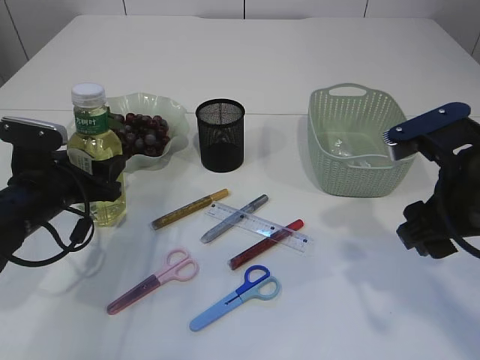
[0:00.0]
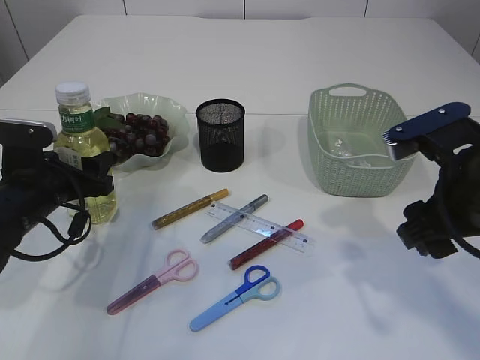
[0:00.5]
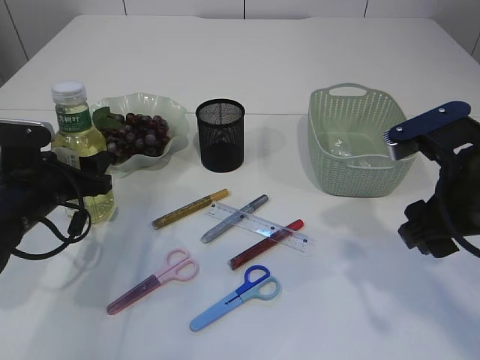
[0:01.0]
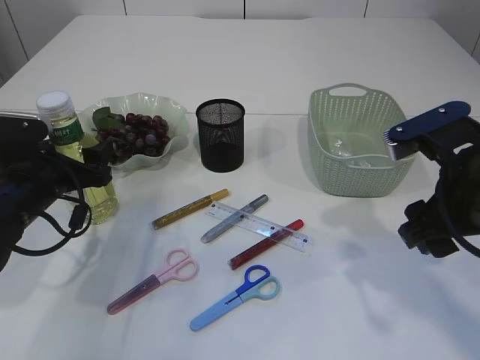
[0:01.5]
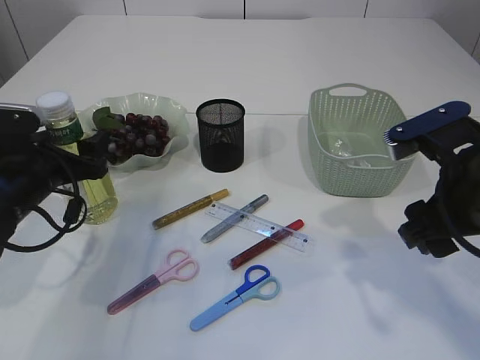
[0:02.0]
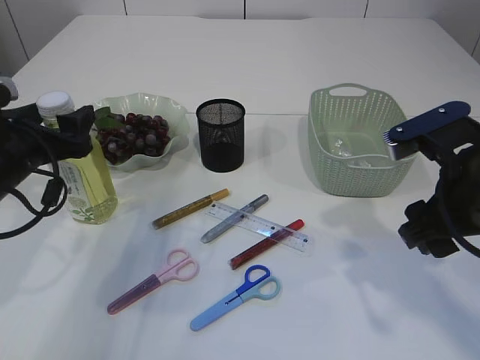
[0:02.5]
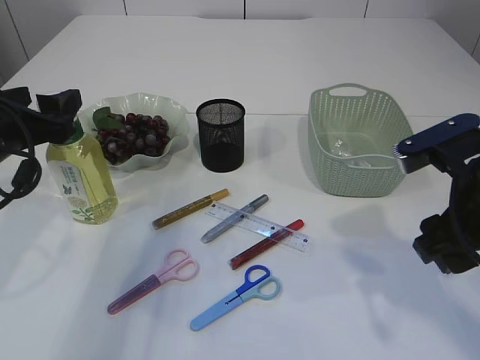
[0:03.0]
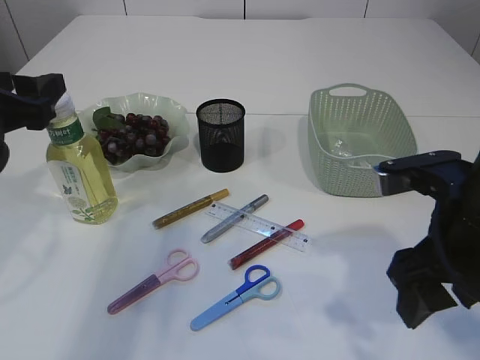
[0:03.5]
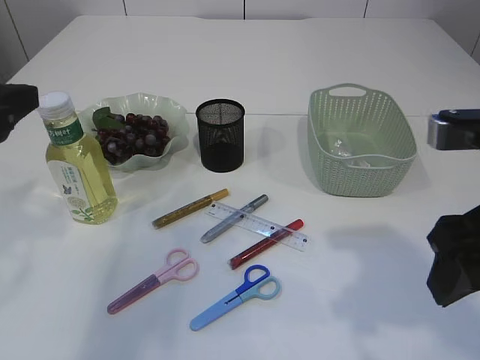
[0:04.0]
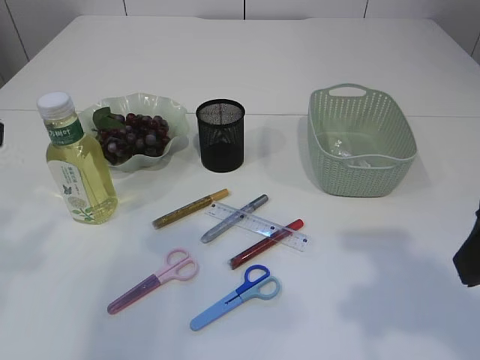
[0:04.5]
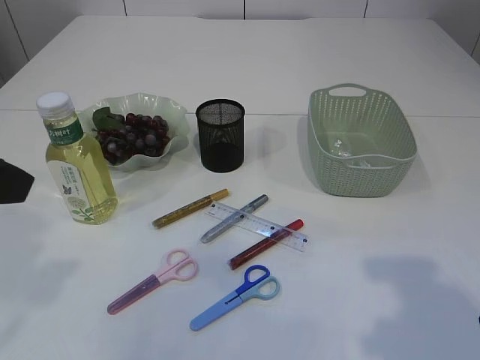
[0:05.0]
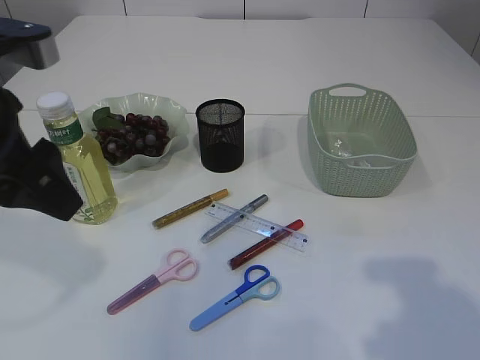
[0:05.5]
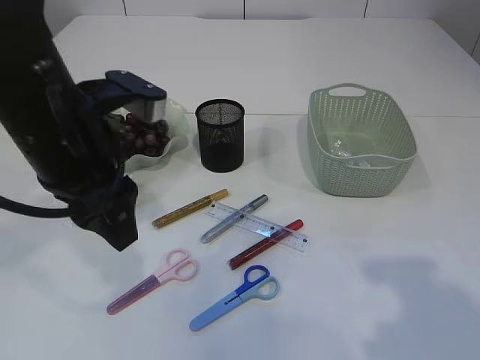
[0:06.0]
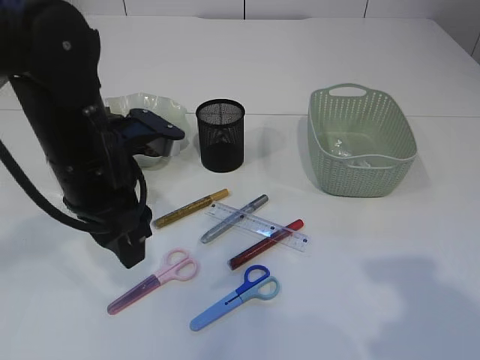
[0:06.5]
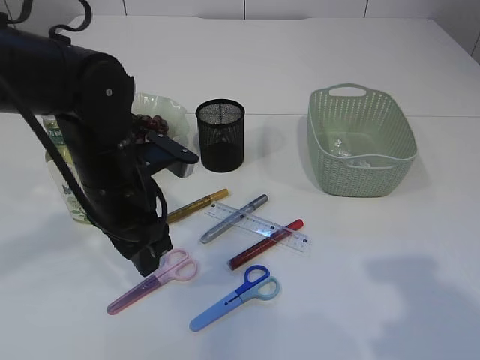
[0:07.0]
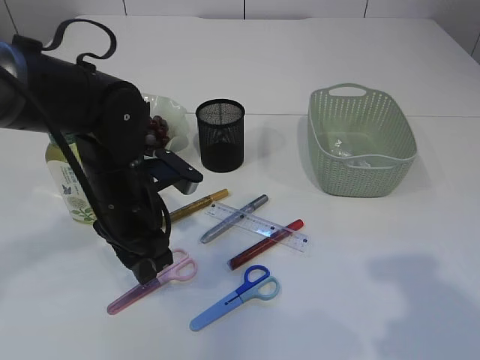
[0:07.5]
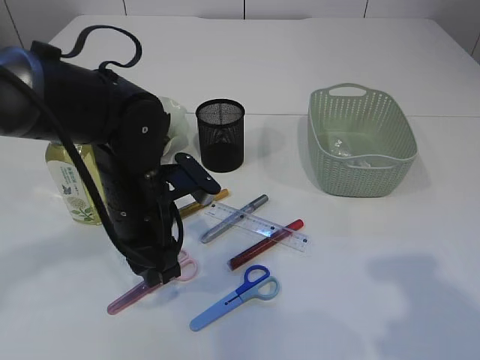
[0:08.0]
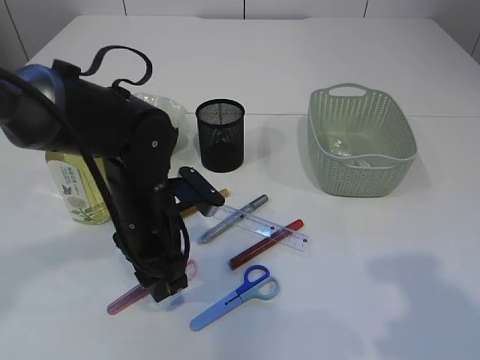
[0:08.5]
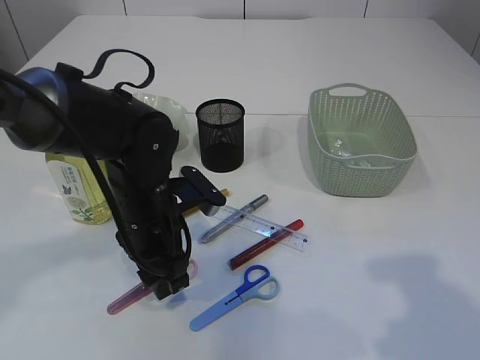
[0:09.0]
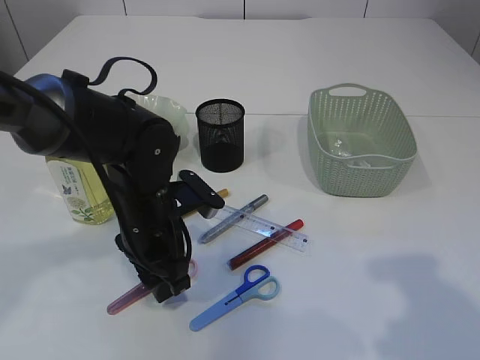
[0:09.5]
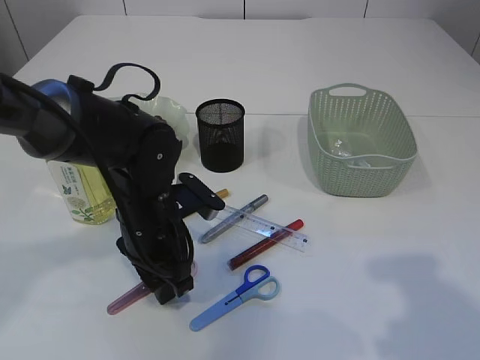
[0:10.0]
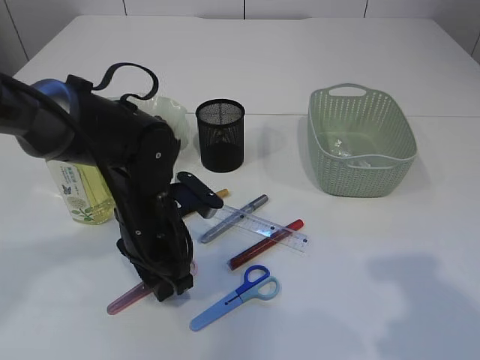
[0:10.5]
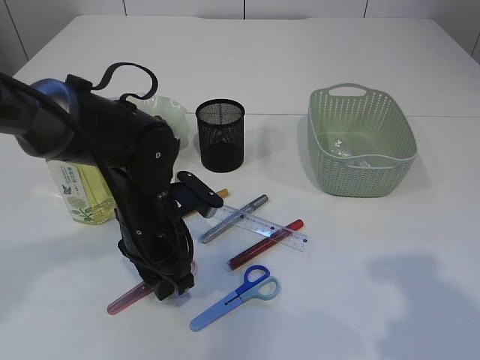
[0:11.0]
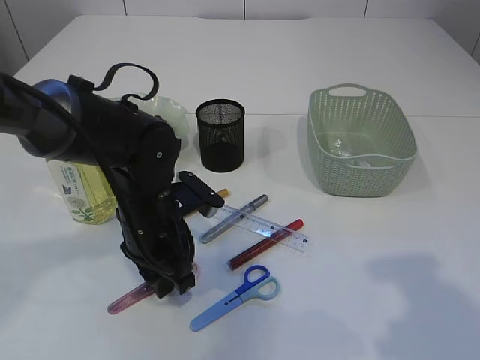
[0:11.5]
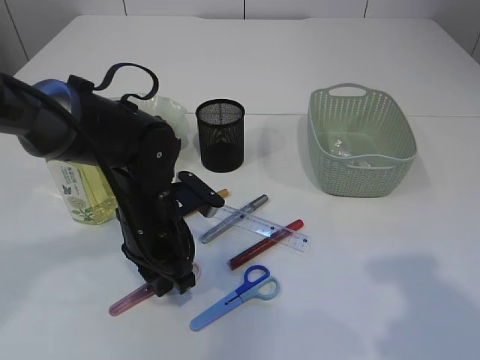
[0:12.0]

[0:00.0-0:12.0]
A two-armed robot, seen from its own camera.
Step, 0:00.0 to 0:03.0: Place the bottle.
0:00.0 to 0:02.0: The grippers make only small movements.
0:02.0 to 0:04.0: The left gripper is displaced upward and backward by approximately 20 cm; the right gripper is displaced backward and upward by some 10 cm.
0:04.0 to 0:06.0: The right gripper is displaced backward by approximately 5 cm. The left gripper goes about 10 cm to the right.
0:06.0 to 0:08.0: The left gripper shifts roughly 10 cm downward.
0:08.0 to 0:10.0: The grippers make only small movements.
0:10.0 to 0:12.0: The left gripper closes its fingers.

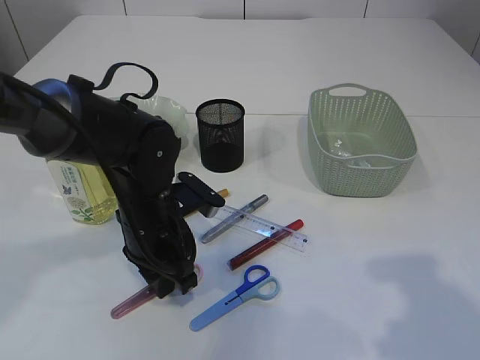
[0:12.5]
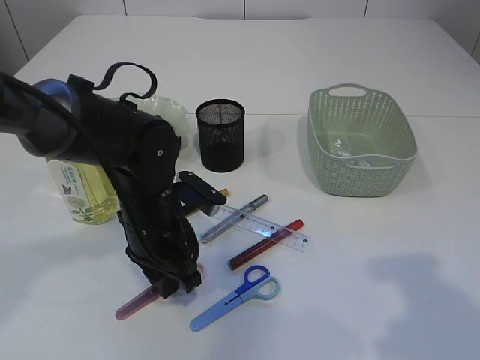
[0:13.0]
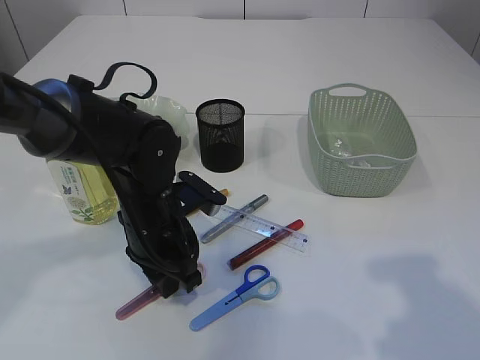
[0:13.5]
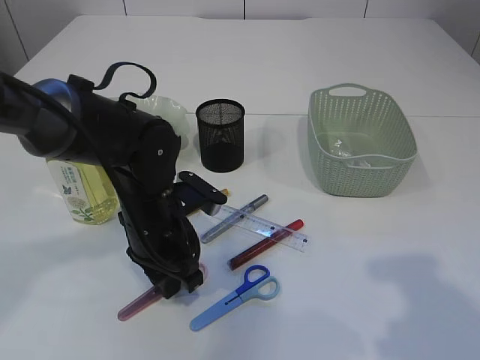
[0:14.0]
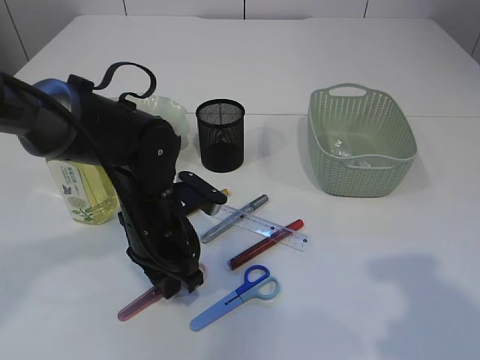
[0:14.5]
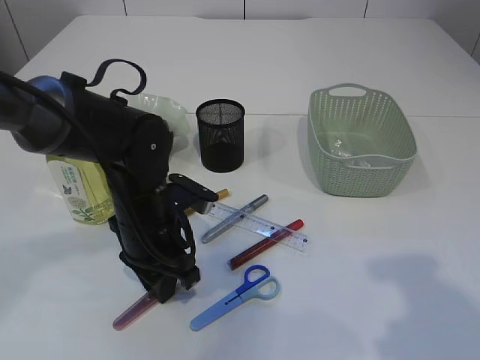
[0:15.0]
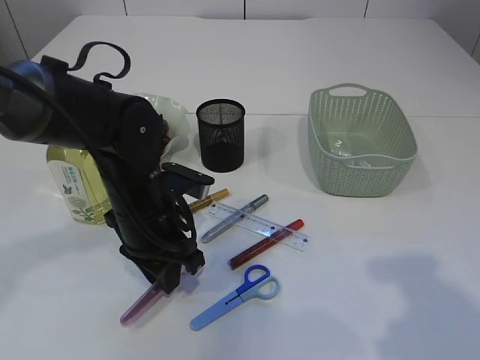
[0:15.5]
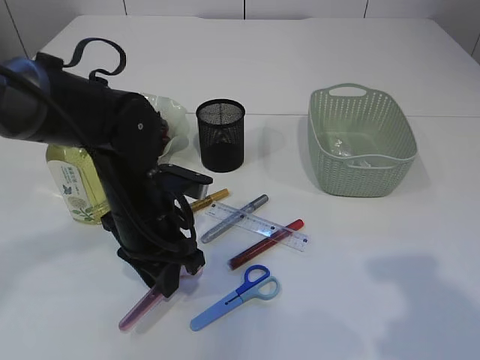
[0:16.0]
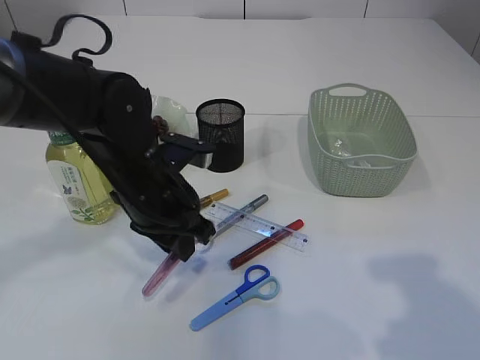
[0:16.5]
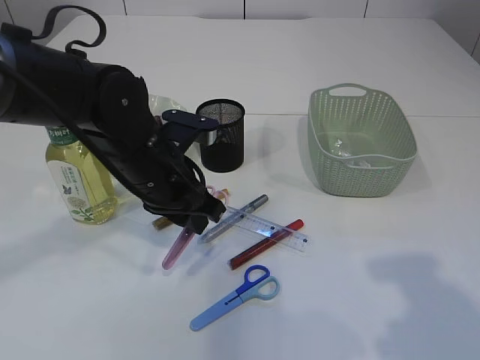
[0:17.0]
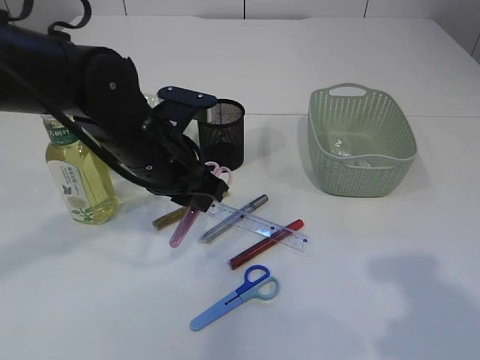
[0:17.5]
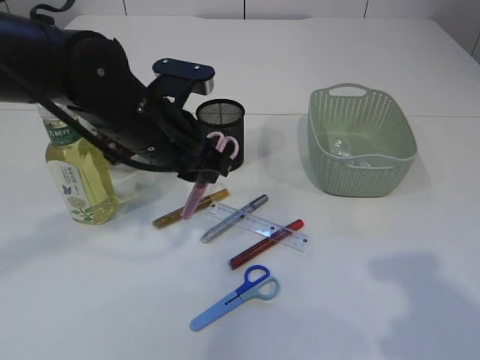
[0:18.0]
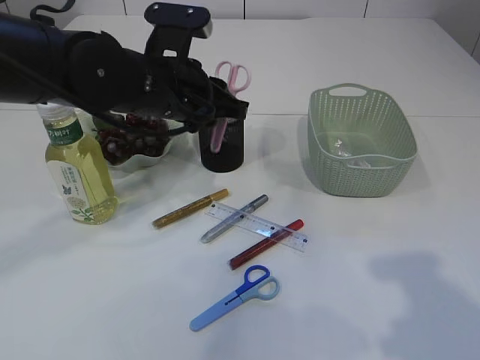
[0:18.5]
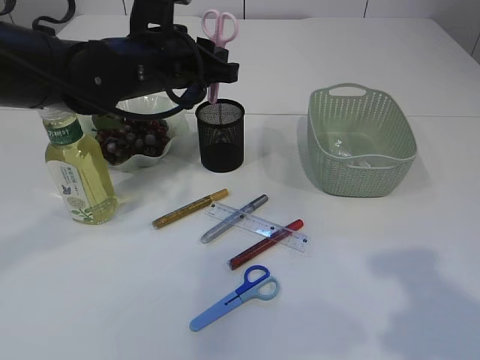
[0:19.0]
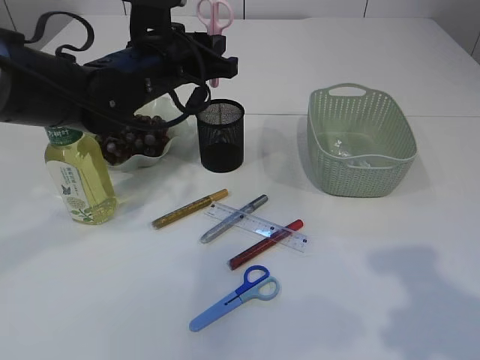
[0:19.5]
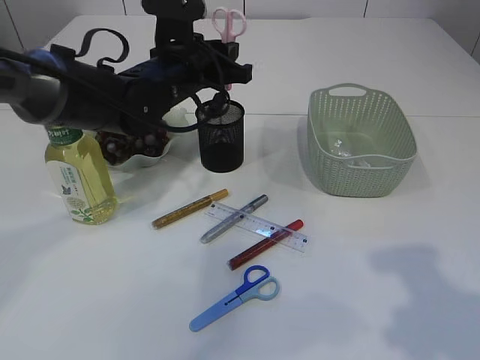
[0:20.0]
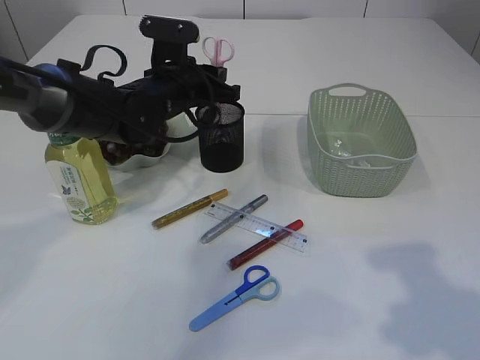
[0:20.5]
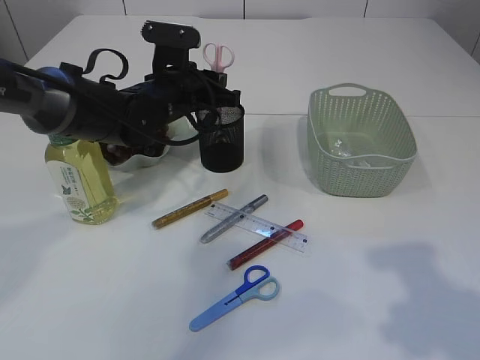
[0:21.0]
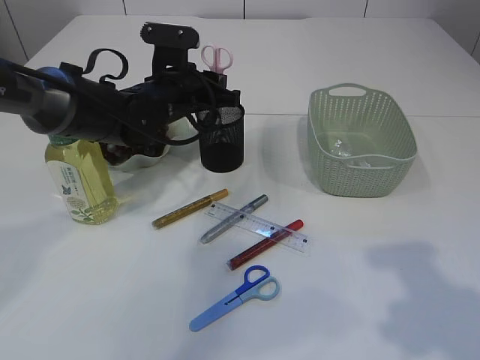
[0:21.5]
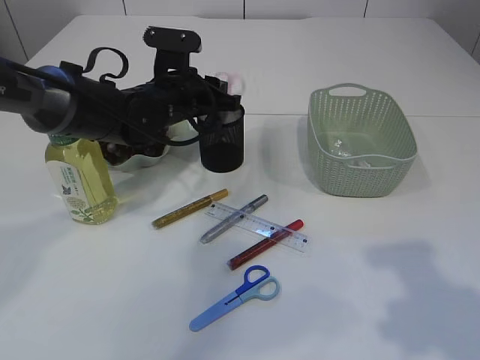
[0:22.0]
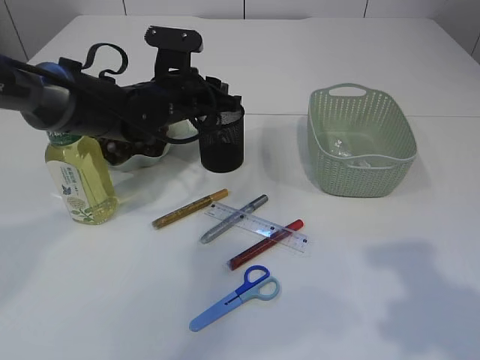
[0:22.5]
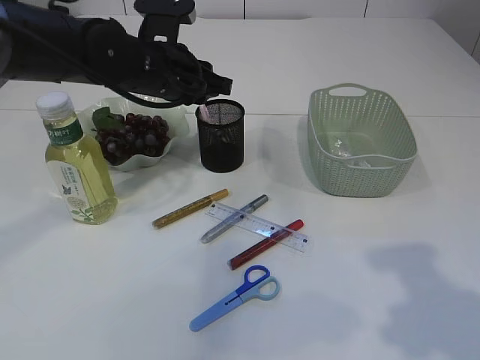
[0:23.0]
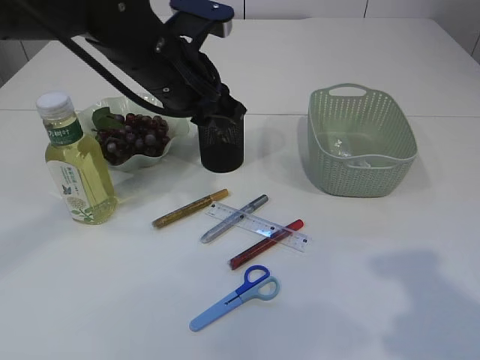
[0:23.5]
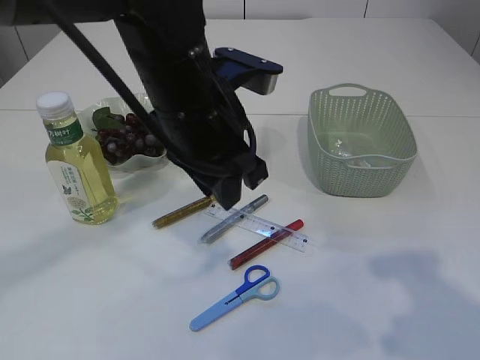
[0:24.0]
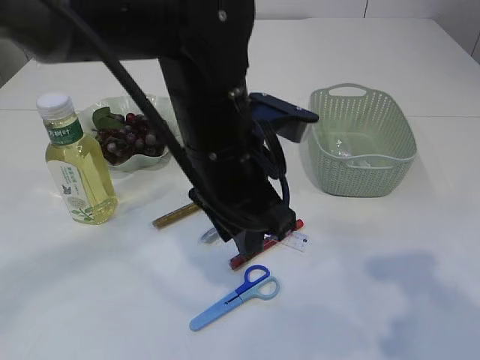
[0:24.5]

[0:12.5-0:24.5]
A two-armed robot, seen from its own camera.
Step, 0:12.5 to 0:16.5: pick up the pink scissors.
Step, 0:17.0 to 0:22.5: Place the pink scissors into the pen holder.
0:12.5 to 0:14.5: Both grippers stay put.
0:14.5 to 0:16.5: The grippers move only a little.
0:16.5 to 0:18.5: The left gripper shifts approximately 10 cm upward.
0:18.5 to 0:20.5: The left gripper shifts some 10 cm forward and downward.
0:20.5 to 0:22.5: There are only small adjustments of the grippers.
0:22.5 to 0:24.5: The left gripper goes approximately 20 cm backward, to the right and upward.

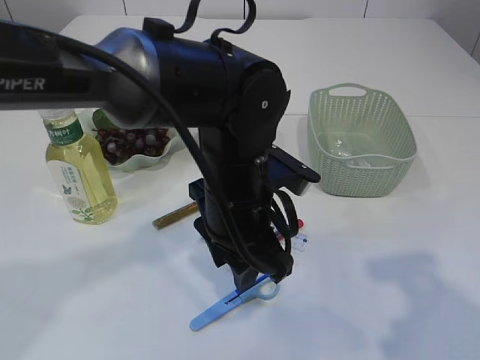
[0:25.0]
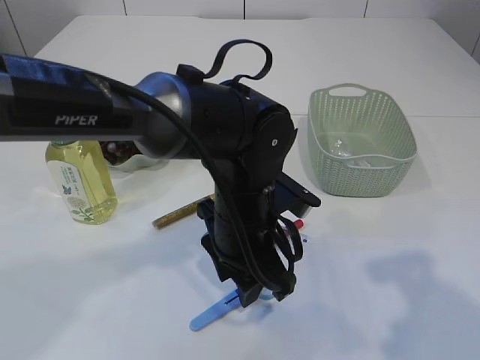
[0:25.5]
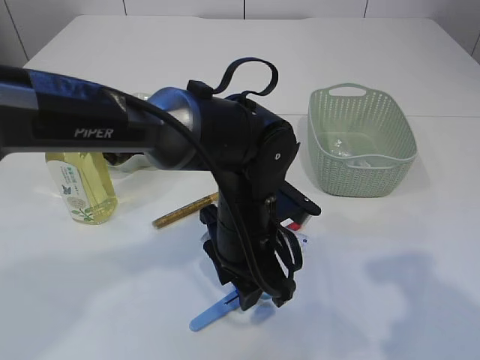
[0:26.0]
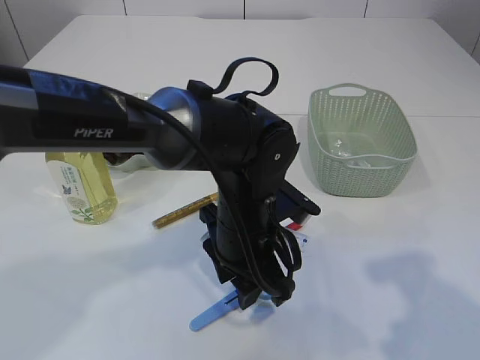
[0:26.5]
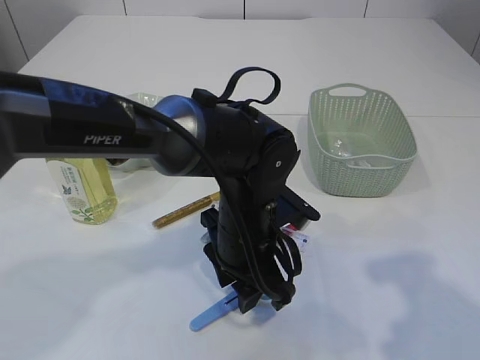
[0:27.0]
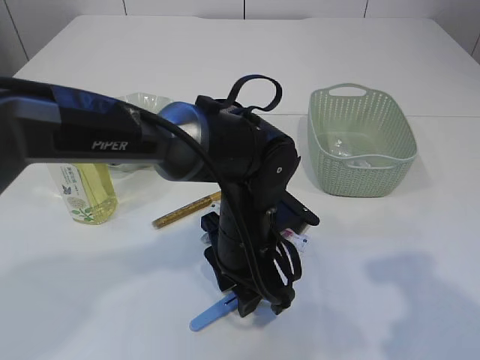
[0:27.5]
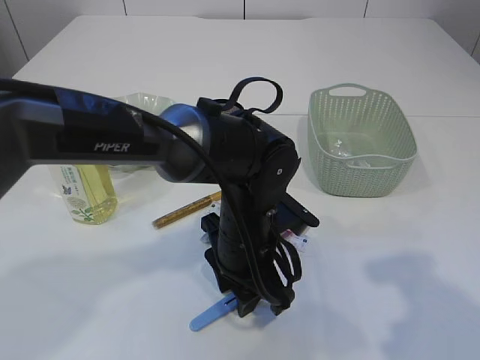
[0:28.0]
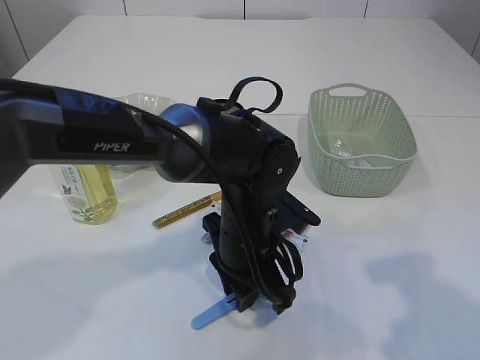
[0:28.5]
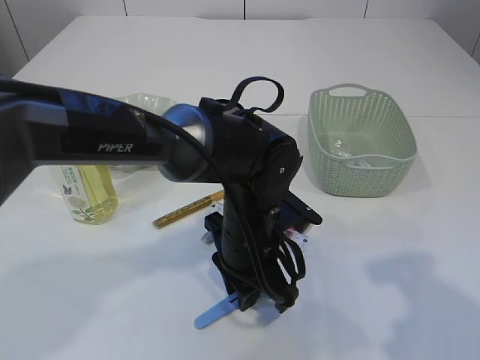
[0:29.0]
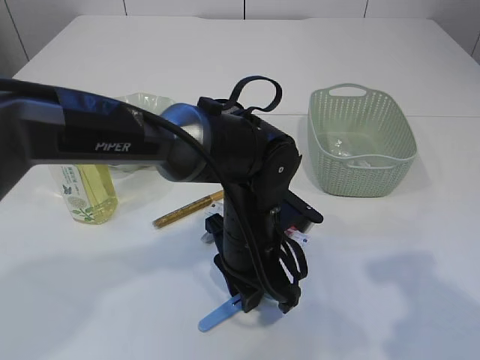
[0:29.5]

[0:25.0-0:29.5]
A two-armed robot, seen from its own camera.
0:25.0 to 0:27.0: The left gripper travels downward by approximately 5 cm.
0:27.0 to 0:29.5: There are only small adjustments of the grippers.
